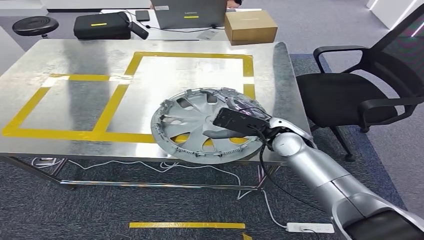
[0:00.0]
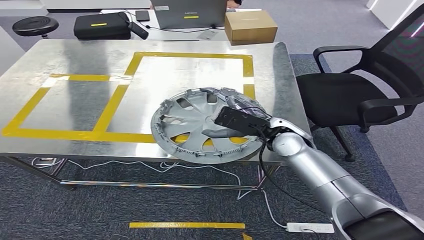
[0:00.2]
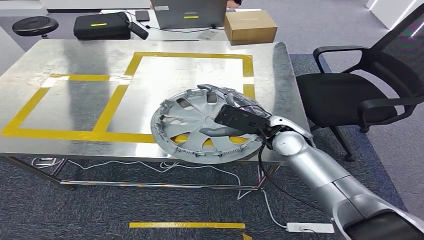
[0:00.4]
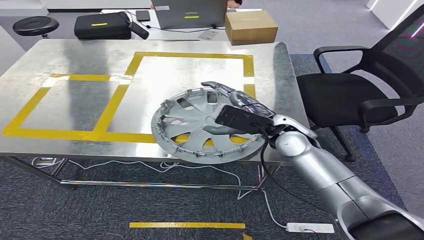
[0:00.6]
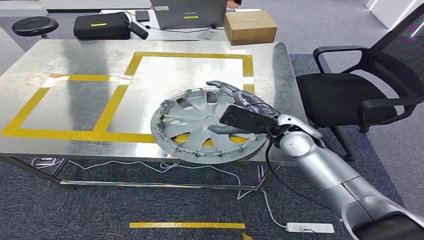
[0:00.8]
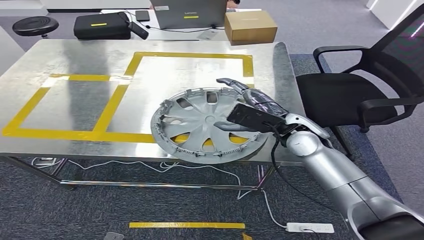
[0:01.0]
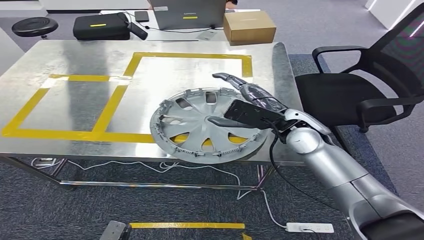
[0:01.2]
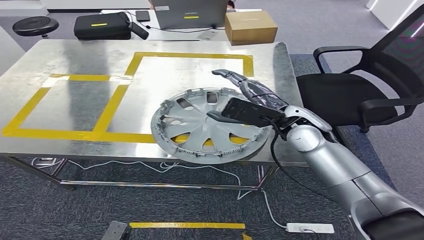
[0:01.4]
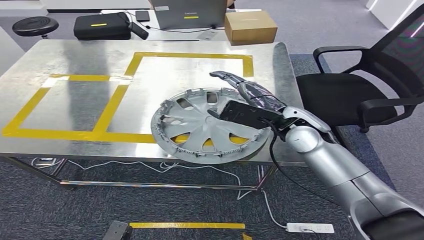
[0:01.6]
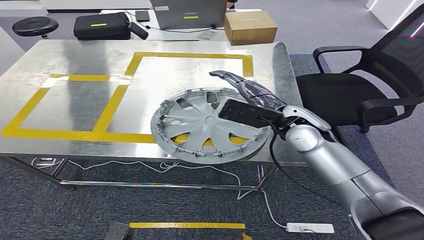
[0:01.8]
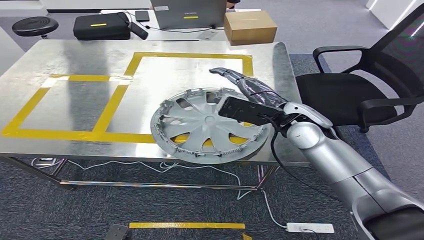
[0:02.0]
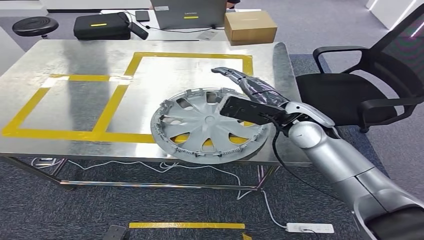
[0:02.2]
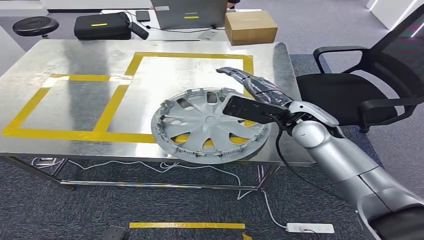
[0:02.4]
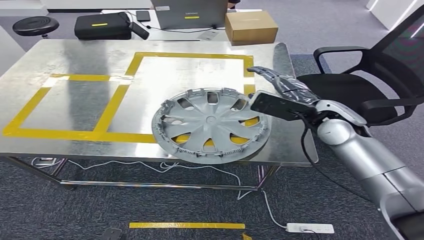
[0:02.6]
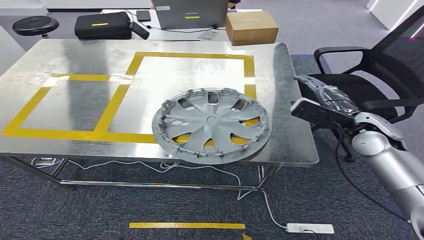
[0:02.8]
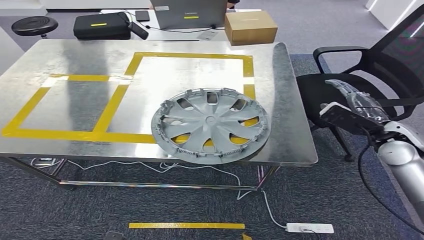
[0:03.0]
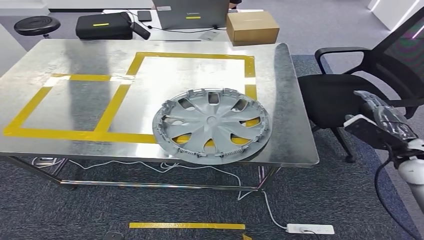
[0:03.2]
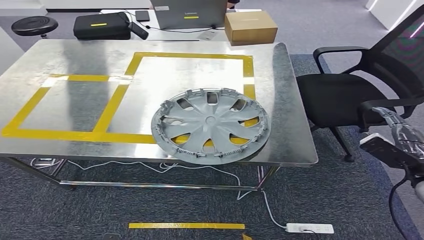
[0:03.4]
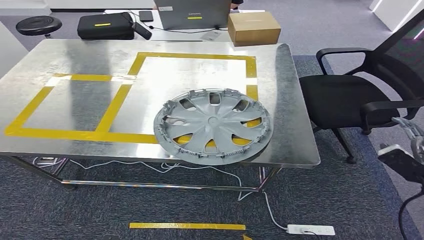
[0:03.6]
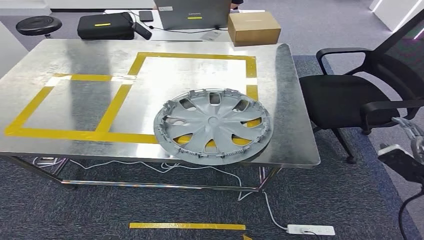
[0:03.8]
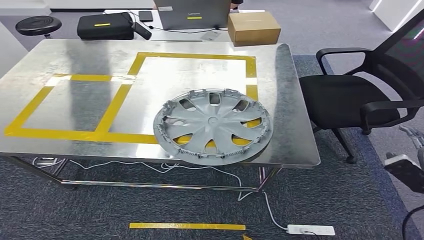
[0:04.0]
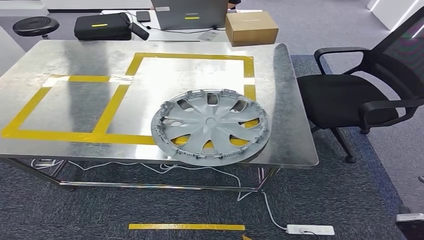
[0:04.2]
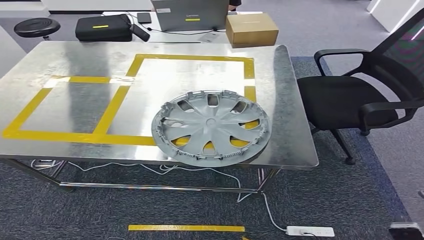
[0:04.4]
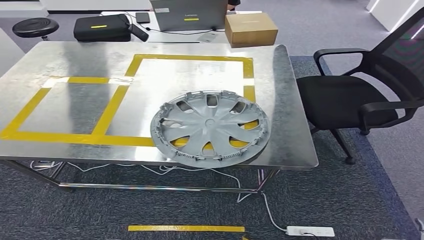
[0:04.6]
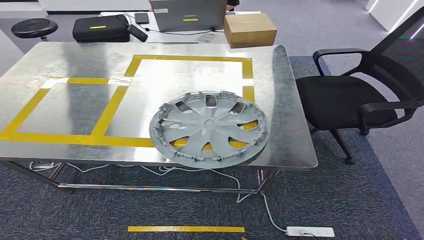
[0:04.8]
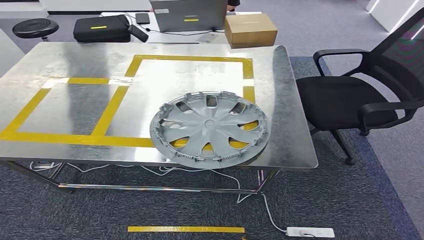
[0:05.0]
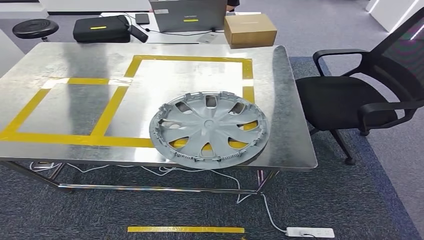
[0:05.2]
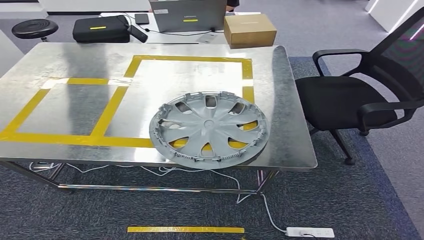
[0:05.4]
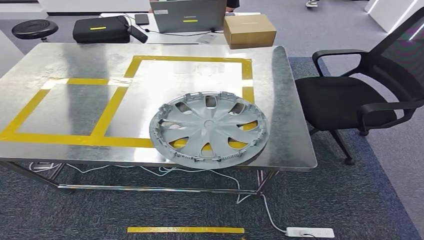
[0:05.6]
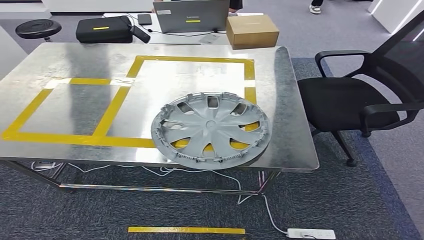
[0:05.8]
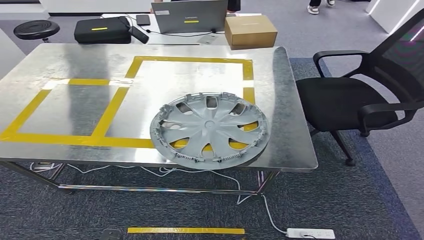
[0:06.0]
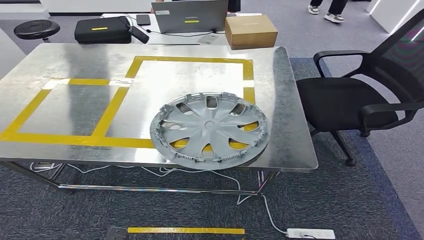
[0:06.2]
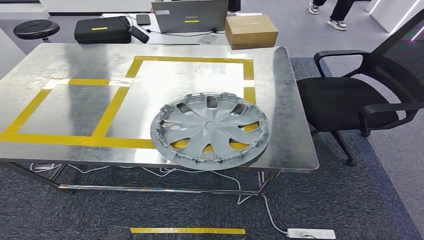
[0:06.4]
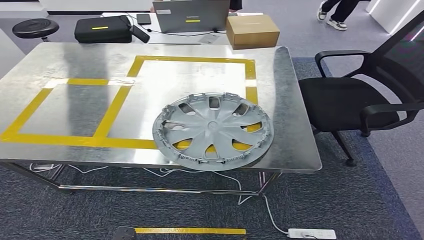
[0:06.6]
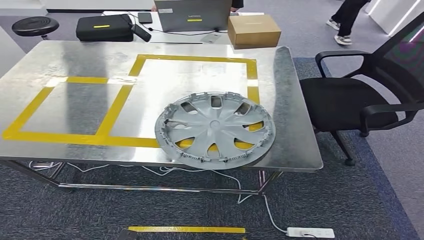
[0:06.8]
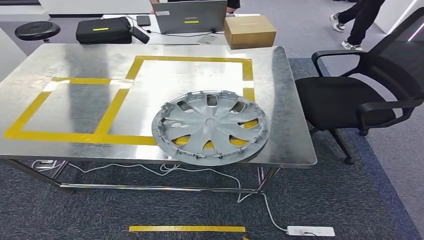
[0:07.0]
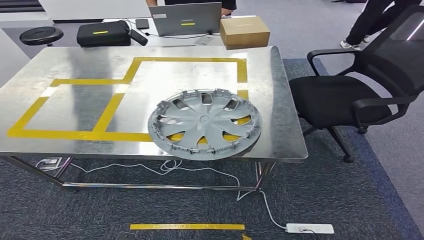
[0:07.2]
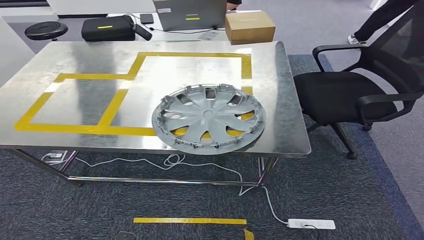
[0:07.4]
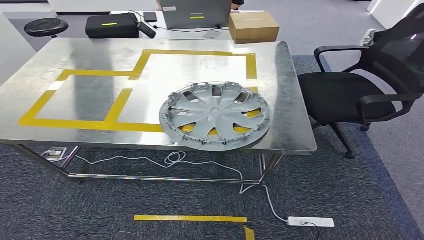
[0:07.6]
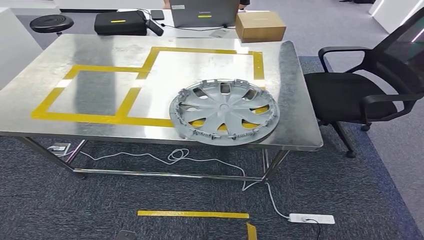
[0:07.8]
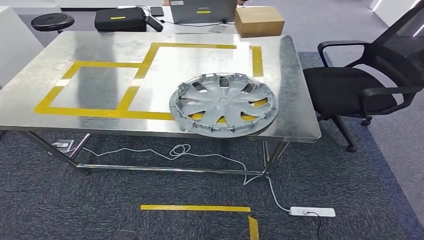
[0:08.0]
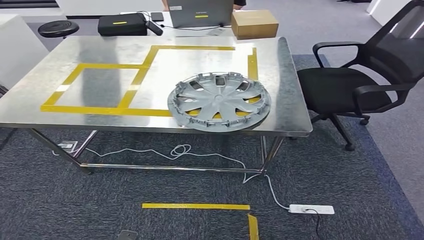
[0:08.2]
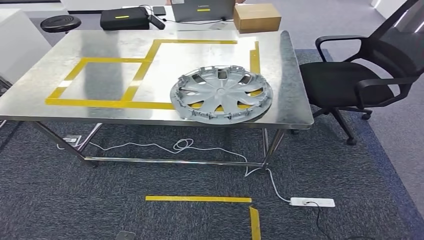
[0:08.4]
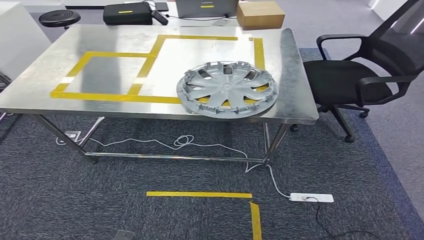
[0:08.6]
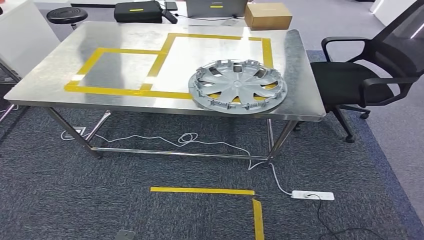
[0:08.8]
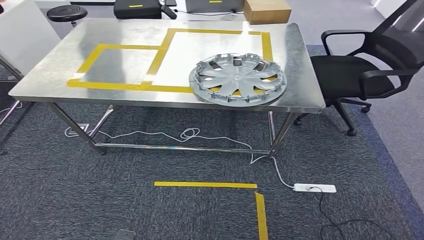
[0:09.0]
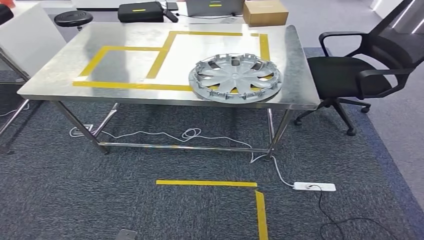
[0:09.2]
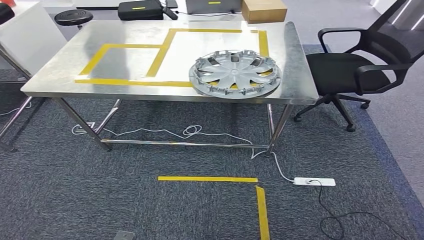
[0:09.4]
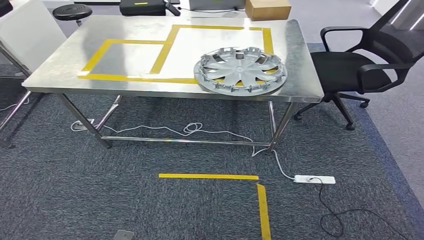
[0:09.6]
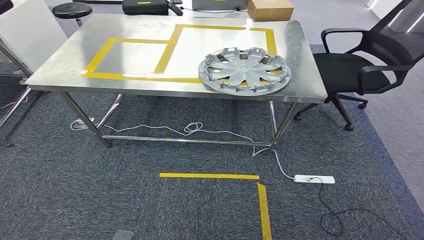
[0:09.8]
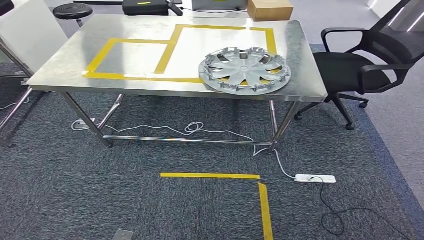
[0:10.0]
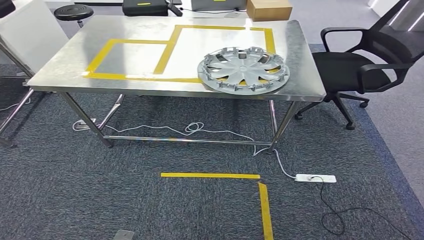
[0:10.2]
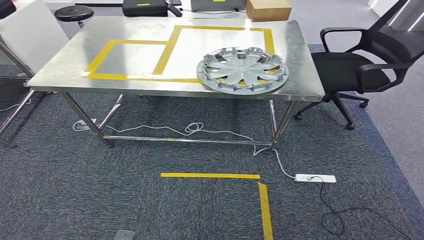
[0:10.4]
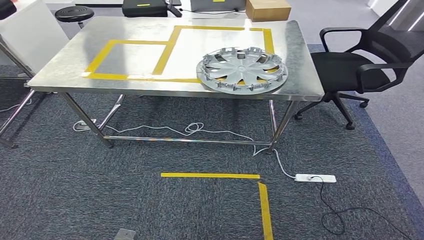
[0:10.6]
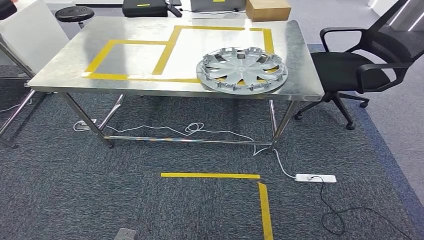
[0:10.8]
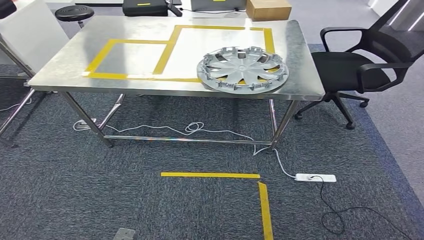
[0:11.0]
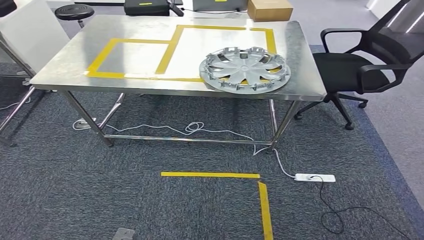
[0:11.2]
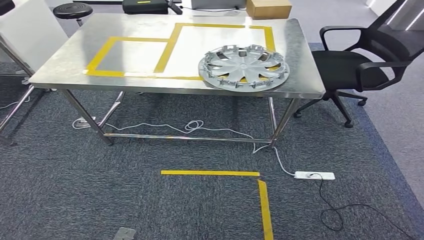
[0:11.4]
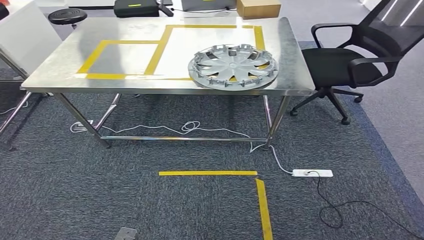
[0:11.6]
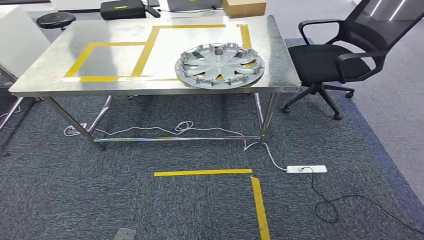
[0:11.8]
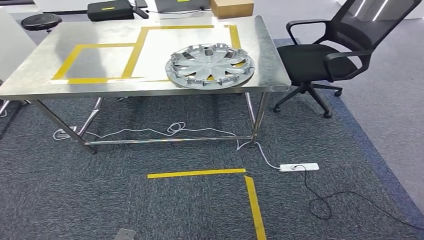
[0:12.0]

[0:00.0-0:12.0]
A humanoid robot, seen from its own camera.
Step, 0:00.0 to 0:02.0: Insert the small component into the corresponding slot on the workbench.
0:00.0 to 0:01.6: The left hand ends up approximately 5 cm from where it was.
0:01.6 to 0:03.0: The right hand moves to the right, approximately 20 cm.
0:03.0 to 0:04.4: The right hand goes some 35 cm backward and downward.
0:04.4 to 0:06.0: The right hand travels downward, to the left and backward by some 25 cm.

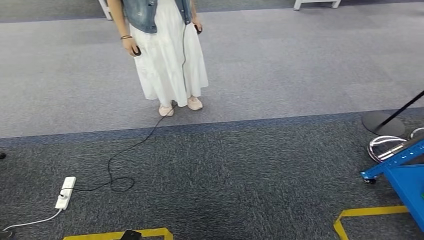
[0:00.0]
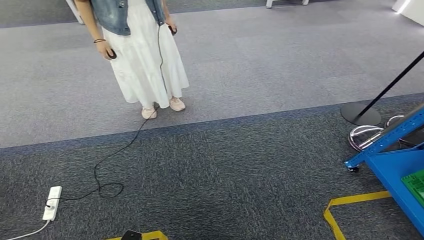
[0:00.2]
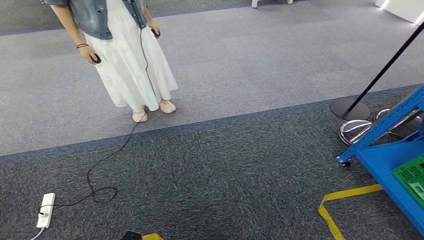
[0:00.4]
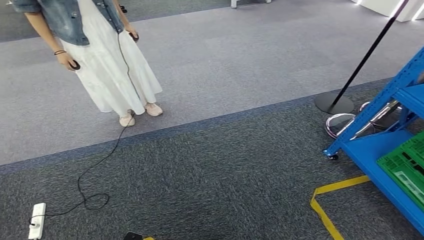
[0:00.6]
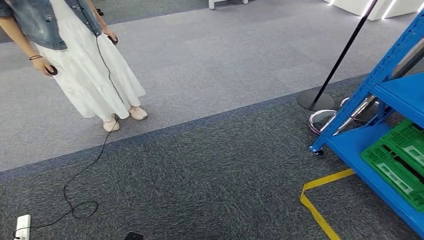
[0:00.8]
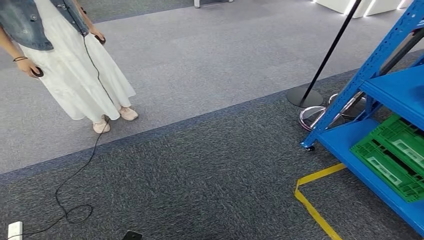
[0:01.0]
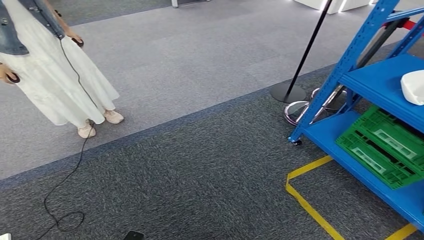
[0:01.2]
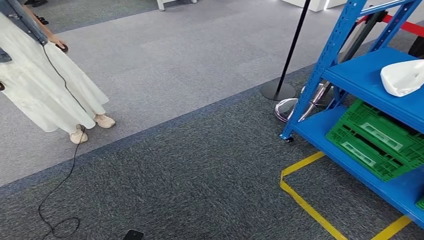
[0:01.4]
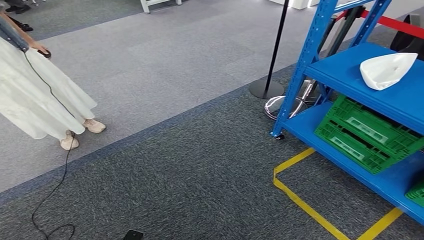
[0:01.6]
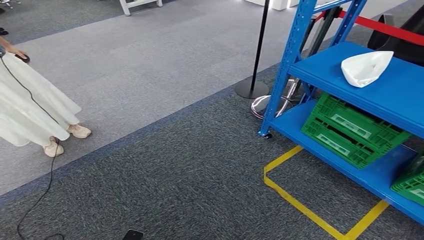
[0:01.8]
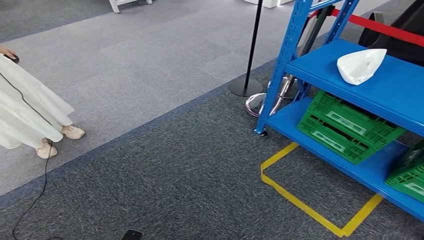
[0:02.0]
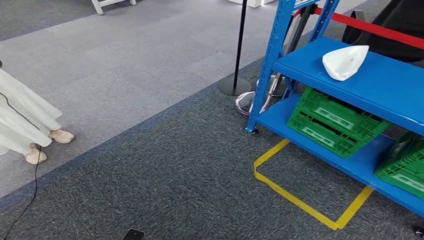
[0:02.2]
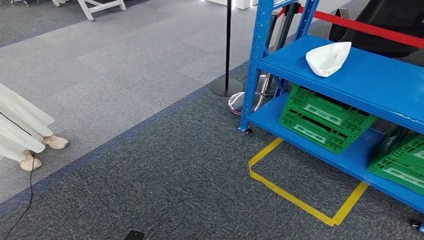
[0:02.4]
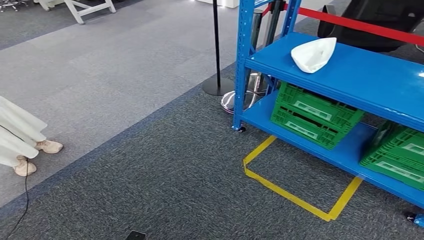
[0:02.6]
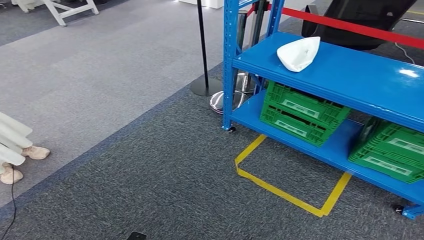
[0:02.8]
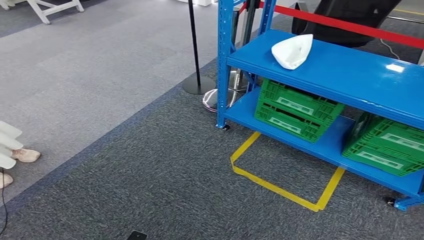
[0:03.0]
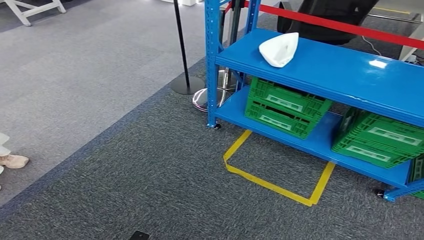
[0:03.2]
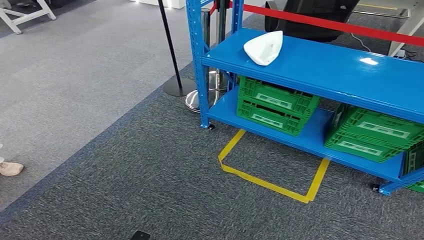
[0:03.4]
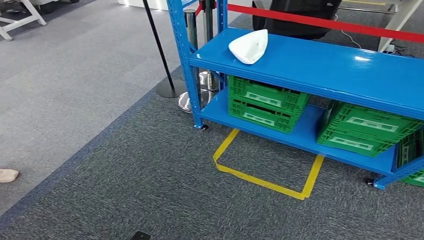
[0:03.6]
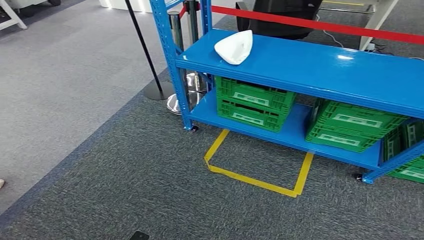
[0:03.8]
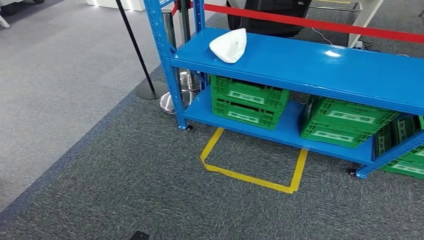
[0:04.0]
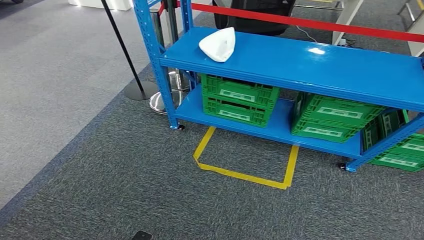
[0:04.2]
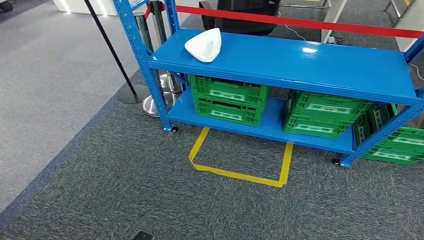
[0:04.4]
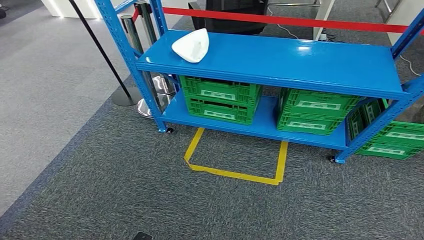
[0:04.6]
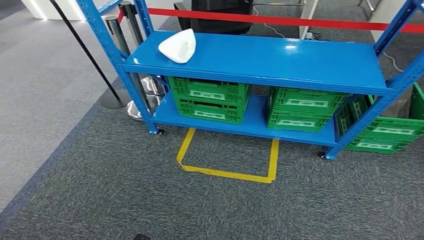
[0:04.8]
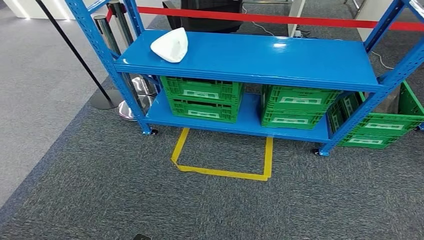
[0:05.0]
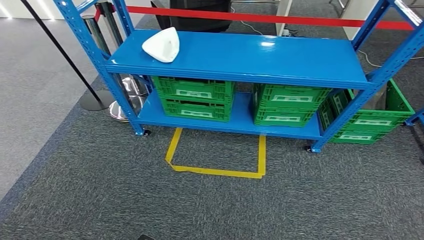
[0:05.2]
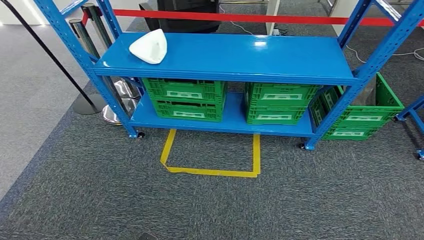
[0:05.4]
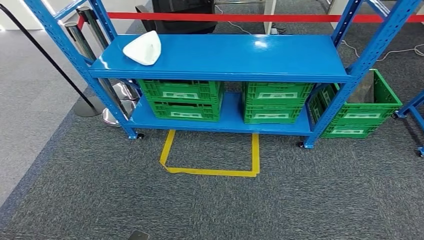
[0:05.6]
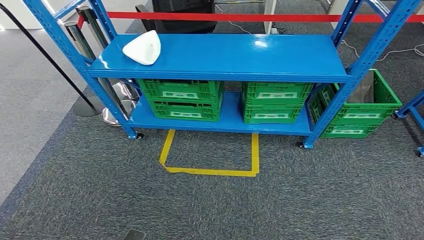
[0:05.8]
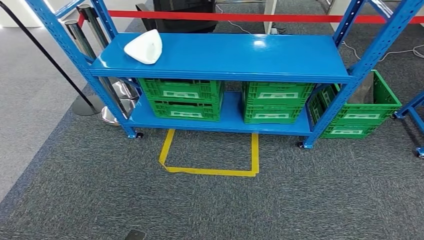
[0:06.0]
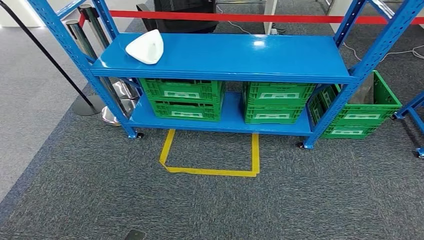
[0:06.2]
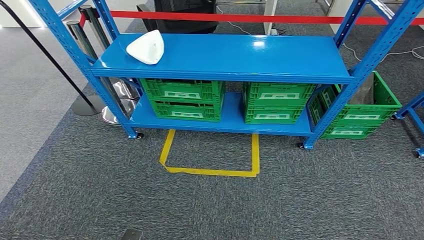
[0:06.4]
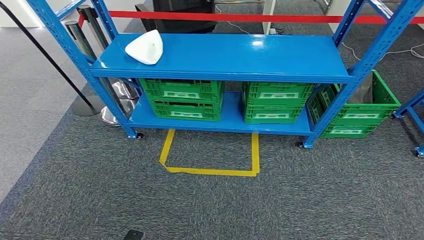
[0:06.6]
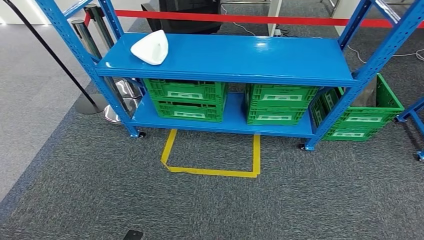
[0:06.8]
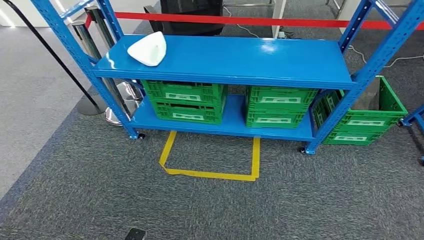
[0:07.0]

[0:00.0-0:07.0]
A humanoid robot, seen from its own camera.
0:05.6 to 0:07.0: The hands move only a little.
